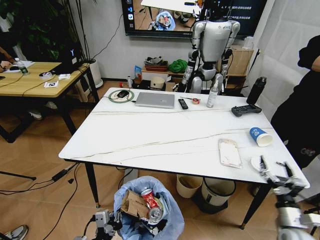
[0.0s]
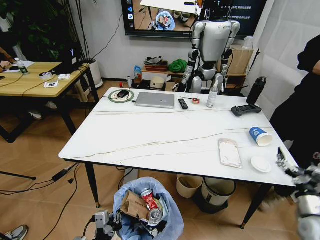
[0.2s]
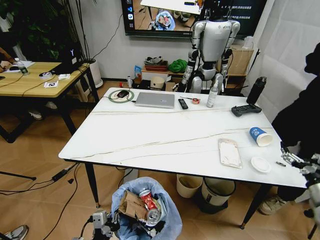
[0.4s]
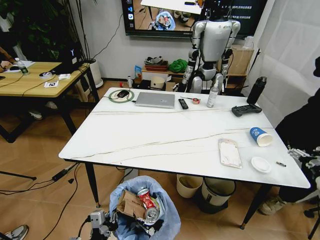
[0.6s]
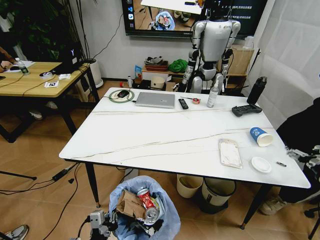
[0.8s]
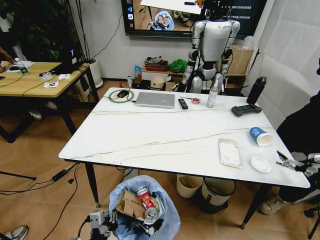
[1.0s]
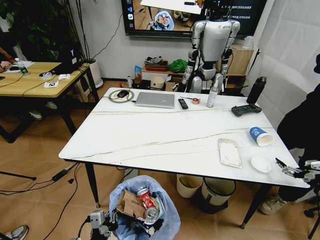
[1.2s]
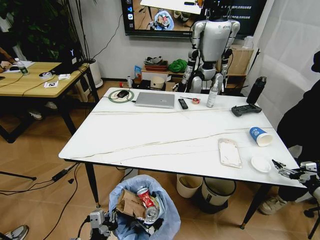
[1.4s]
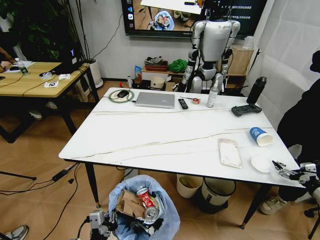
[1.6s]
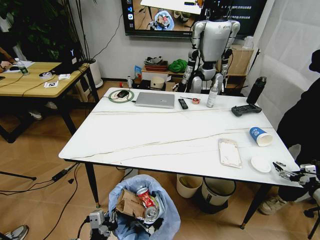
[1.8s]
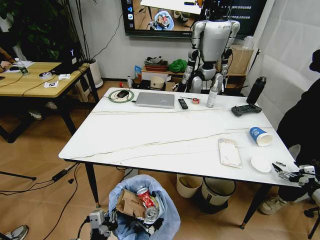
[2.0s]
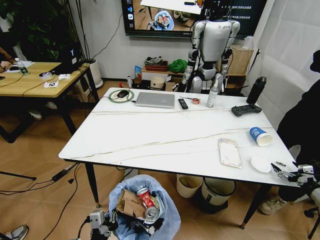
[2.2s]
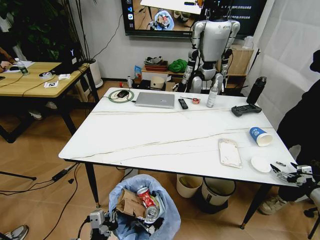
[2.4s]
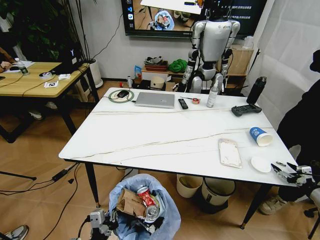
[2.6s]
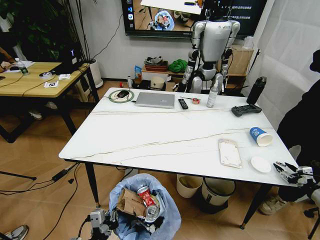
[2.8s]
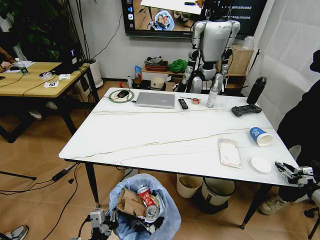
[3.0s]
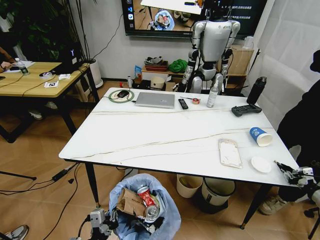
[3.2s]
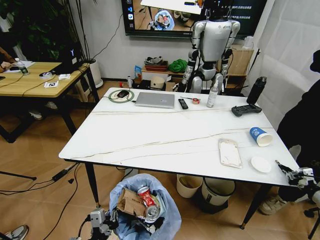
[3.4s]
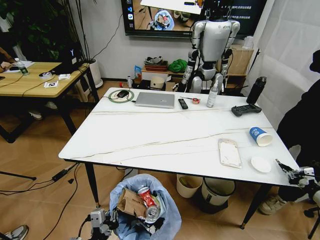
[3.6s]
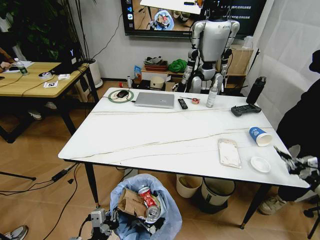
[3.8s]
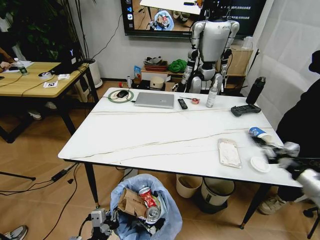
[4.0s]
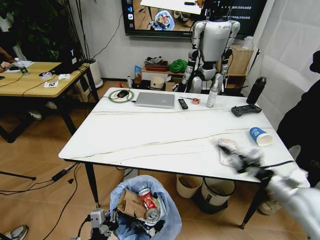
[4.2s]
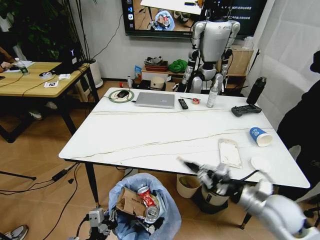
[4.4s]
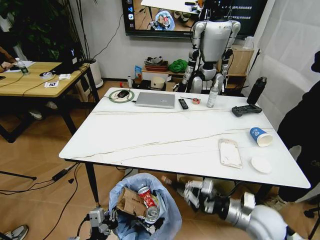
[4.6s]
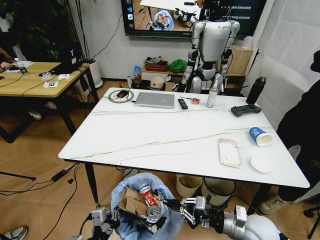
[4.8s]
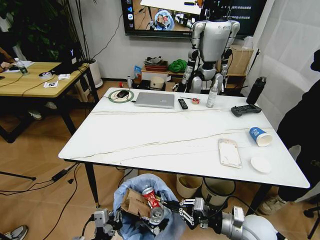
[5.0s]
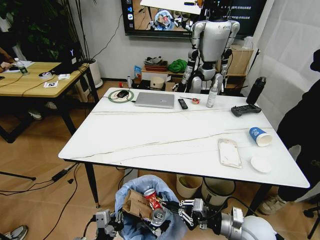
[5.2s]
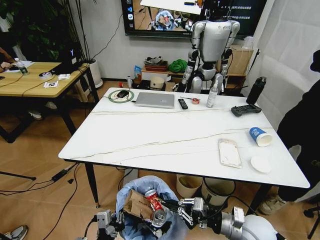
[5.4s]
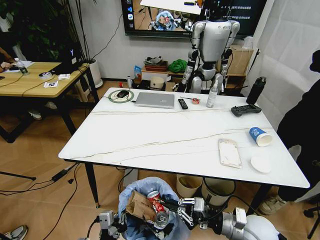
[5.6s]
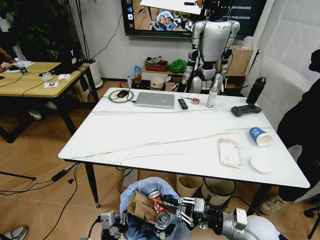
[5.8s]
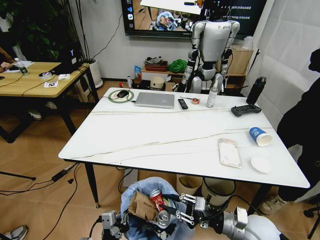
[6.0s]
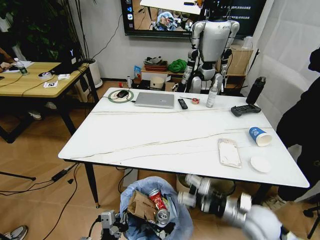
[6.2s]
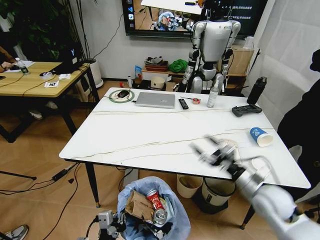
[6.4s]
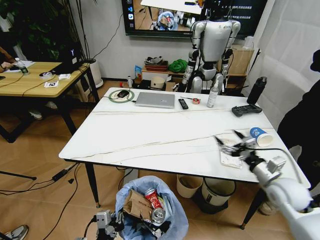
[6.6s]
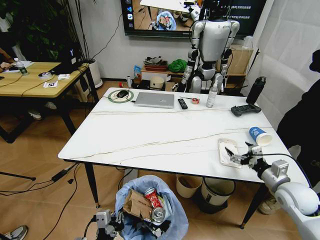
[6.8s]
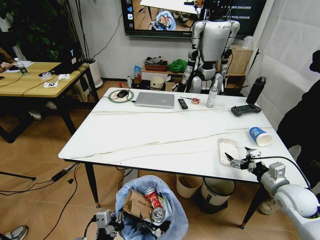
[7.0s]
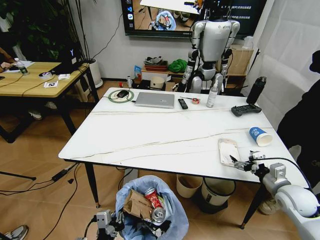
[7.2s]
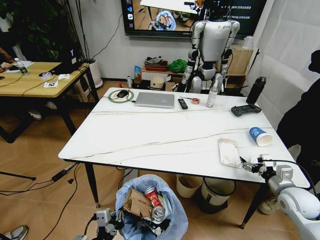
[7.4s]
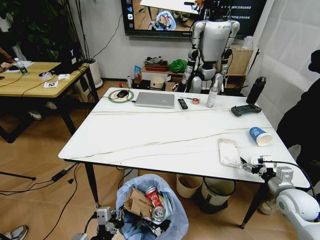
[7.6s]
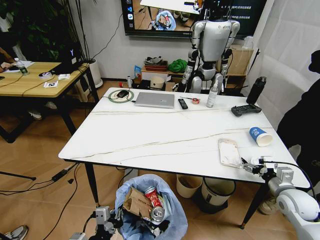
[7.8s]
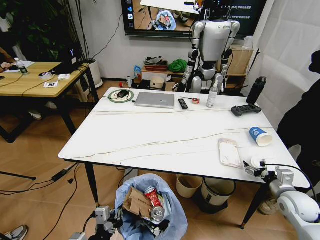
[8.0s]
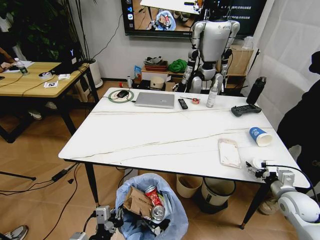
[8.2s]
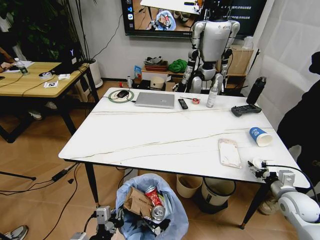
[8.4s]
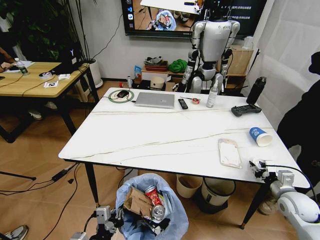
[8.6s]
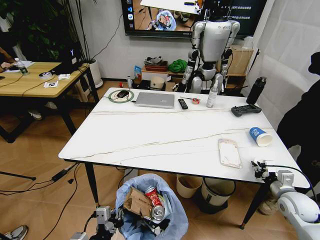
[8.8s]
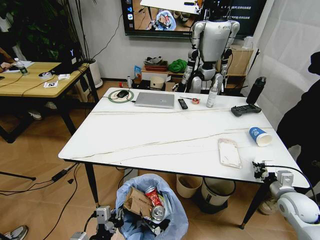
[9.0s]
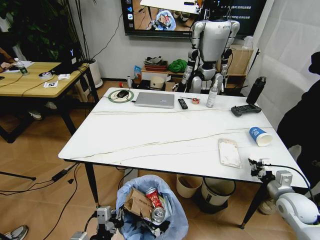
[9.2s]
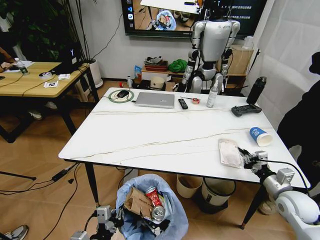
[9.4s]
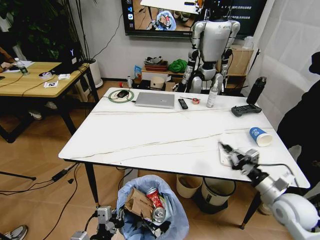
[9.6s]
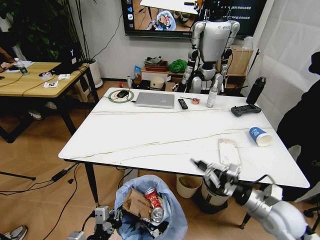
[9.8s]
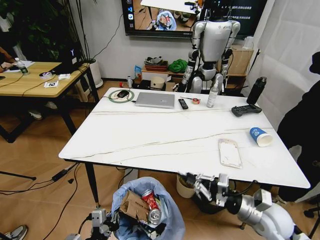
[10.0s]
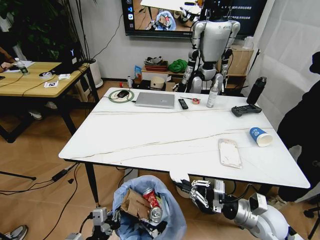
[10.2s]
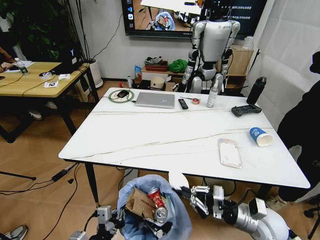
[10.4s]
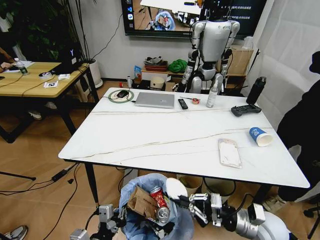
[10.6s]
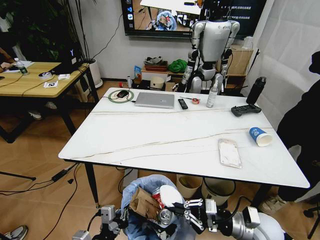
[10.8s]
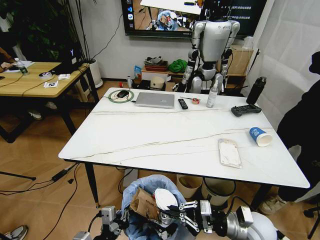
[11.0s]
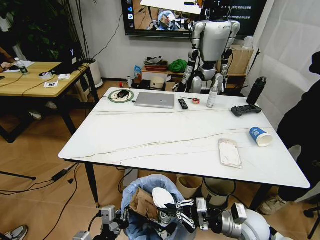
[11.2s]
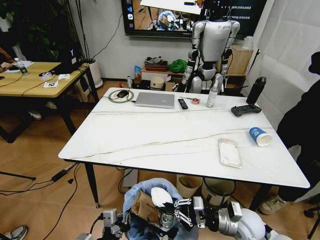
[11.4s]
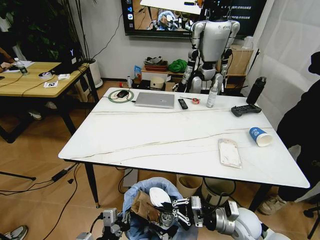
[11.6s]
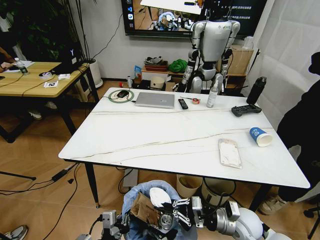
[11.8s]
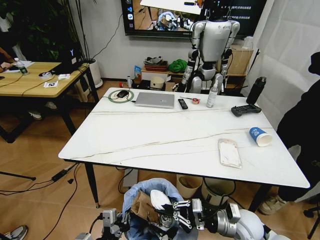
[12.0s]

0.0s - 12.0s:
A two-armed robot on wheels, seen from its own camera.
Task of the whole recording: Pick up the trash bin and place the trash from the table into it.
0.0s - 1.6s: The right gripper moves to the right, approximately 20 cm.
1.6s - 3.0s: The right gripper closes up.
3.0s - 4.4s: The right gripper shifts some 30 cm to the left.
4.4s - 6.0s: The right gripper heads downward, covering some 5 cm.
6.0s - 7.6s: The right gripper goes about 20 cm to the right and forward, and opens up.
7.6s - 9.0s: The right gripper closes up.
9.0s - 10.4s: The right gripper goes some 15 cm to the left.
10.4s - 12.0s: The right gripper ends up about 5 cm from where it was.

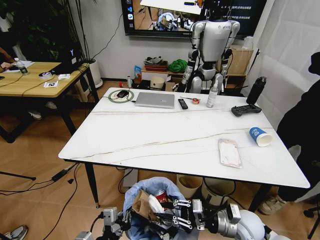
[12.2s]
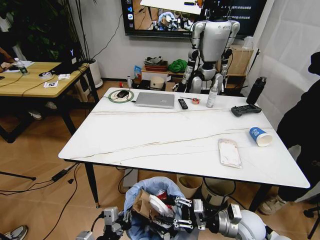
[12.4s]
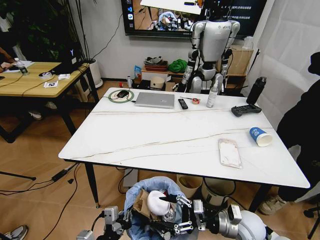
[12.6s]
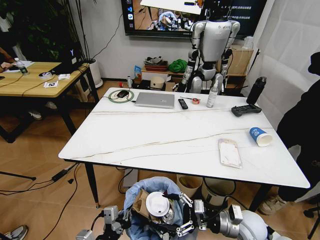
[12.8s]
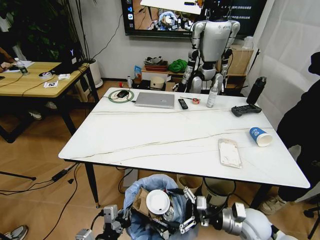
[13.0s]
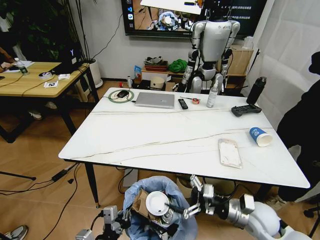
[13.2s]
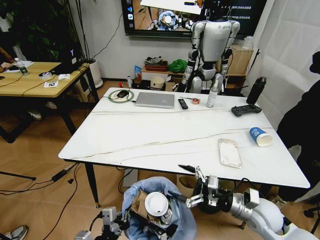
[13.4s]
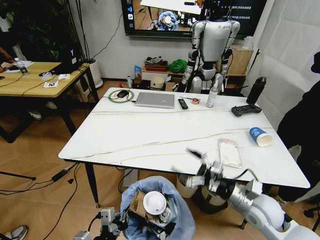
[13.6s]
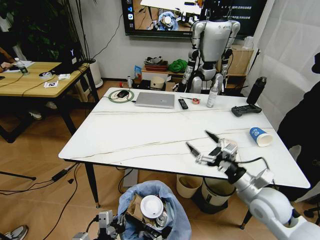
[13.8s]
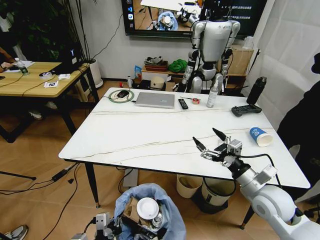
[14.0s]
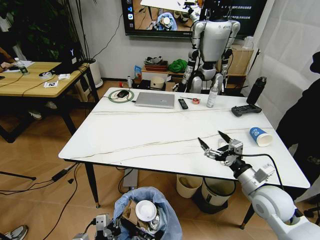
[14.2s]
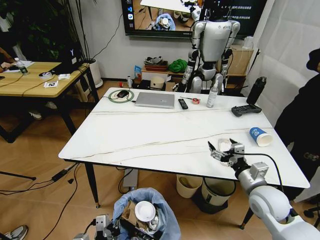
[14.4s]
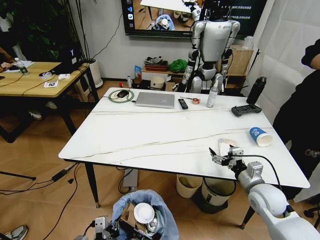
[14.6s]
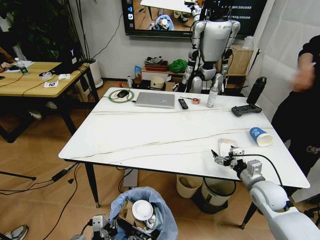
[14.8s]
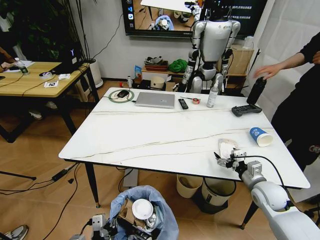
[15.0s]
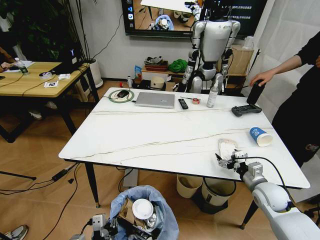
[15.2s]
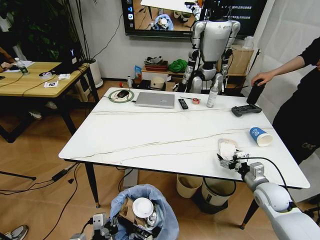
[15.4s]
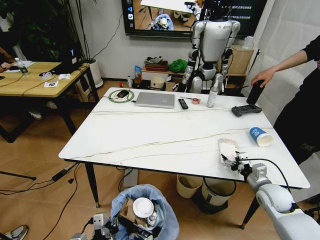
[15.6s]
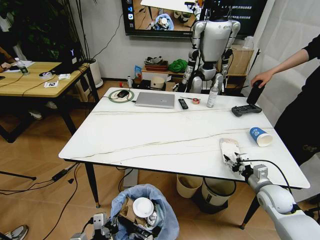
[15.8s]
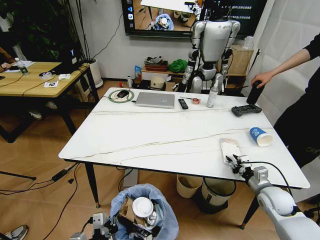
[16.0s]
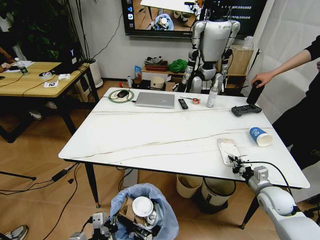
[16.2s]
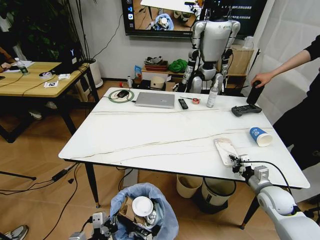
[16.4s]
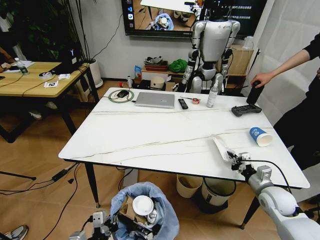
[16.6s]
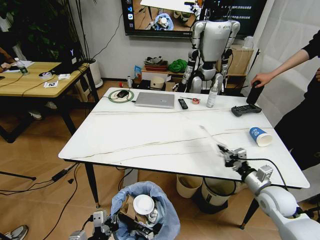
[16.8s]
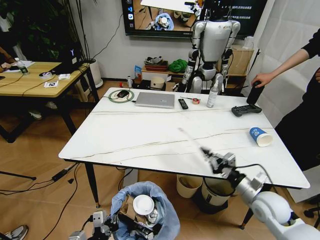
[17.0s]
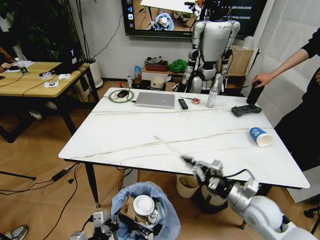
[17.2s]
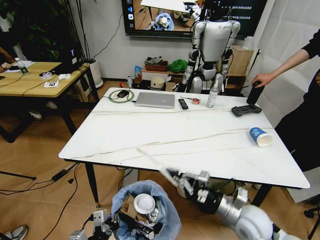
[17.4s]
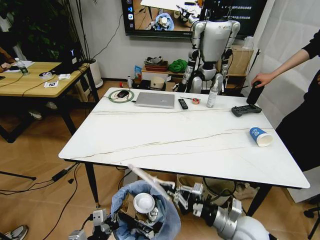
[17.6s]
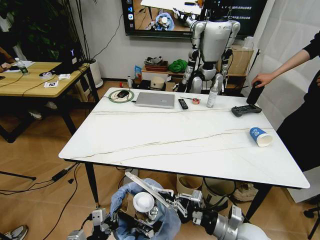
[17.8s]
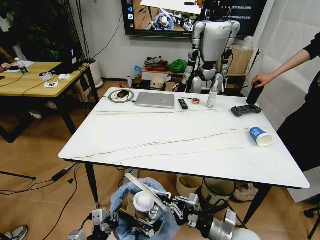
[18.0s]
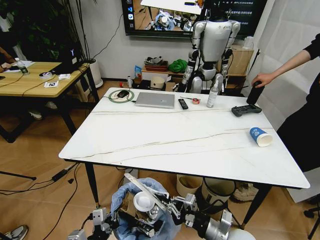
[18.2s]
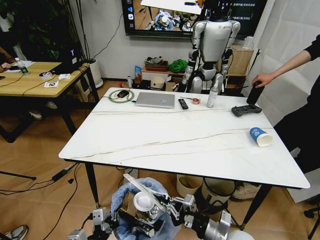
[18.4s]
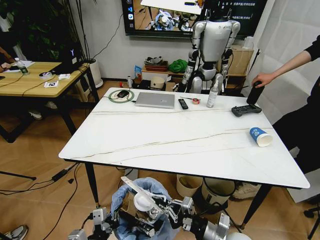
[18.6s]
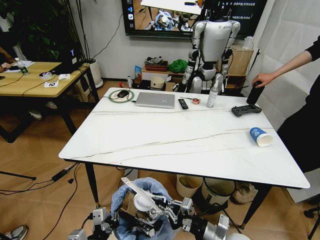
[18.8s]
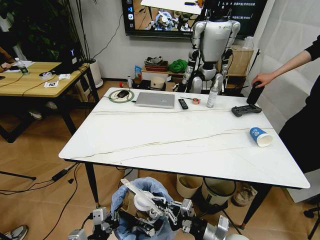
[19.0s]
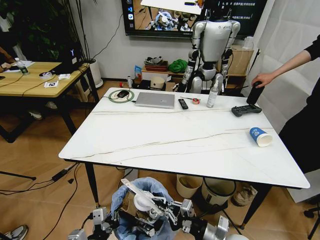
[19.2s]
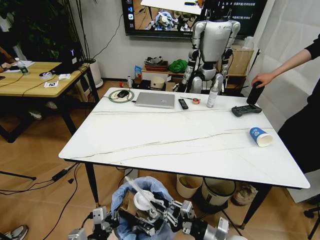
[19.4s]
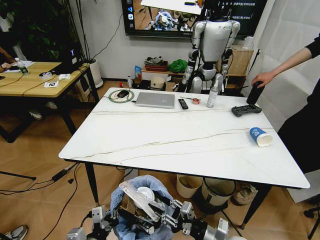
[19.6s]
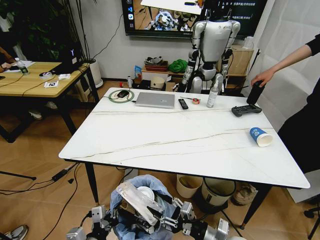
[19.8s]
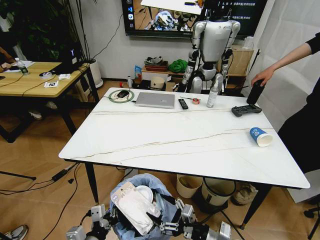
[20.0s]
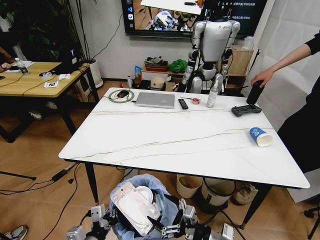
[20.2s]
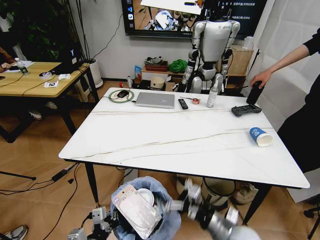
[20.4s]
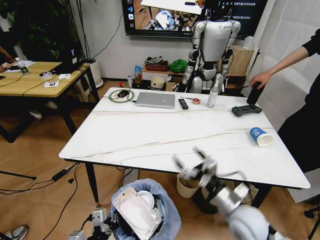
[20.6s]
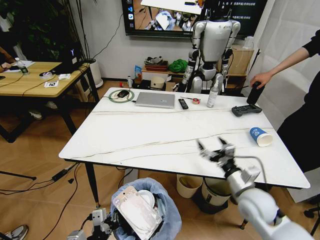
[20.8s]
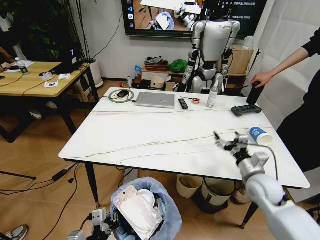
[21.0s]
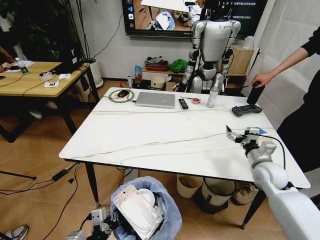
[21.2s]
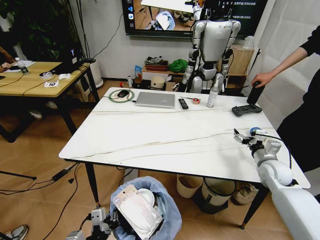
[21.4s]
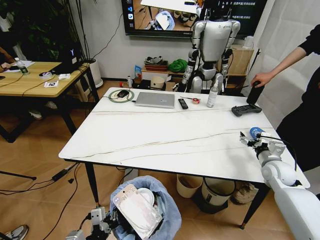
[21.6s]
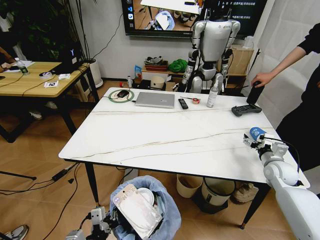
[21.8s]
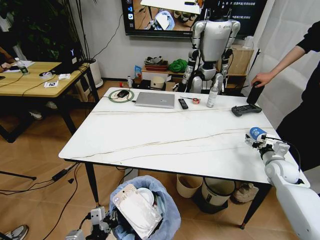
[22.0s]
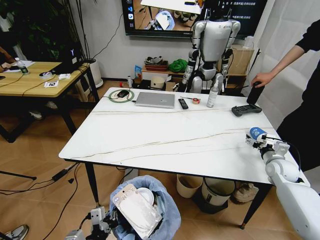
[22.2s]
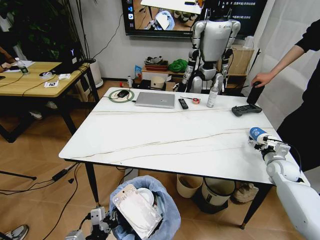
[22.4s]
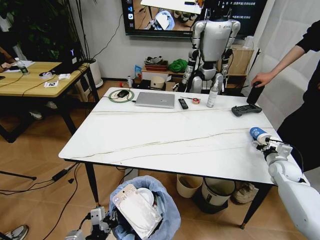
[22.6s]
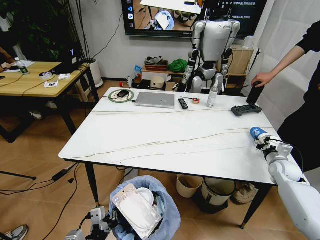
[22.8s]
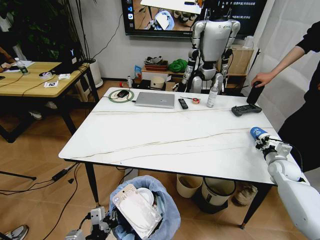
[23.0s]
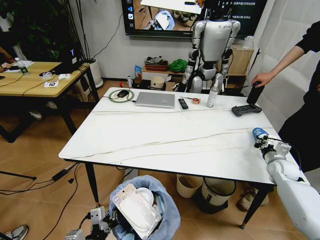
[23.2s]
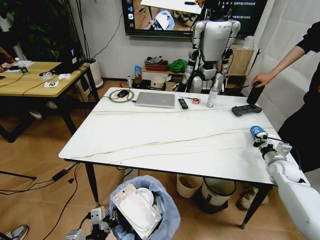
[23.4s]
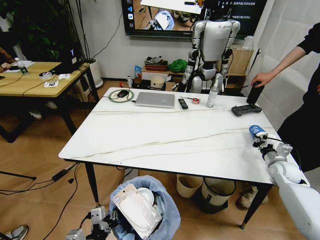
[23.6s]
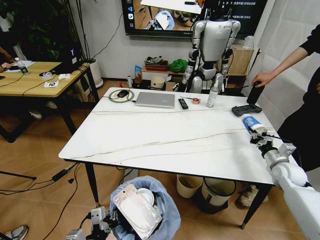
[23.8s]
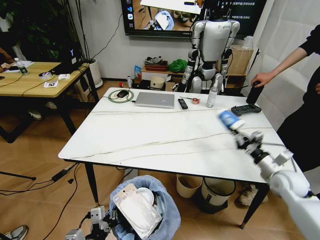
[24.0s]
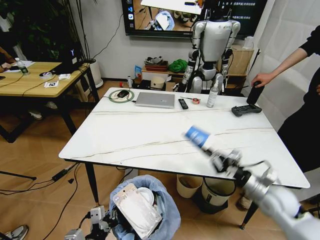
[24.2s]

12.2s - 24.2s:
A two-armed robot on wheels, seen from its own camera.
Task of the whole recording: Pick up the trash bin and place the trash from the table into it.
12.2s - 13.8s: The right gripper shifts roughly 10 cm upward, and opens up.
13.8s - 15.2s: The right gripper travels downward, to the right and forward by some 10 cm.
15.2s - 16.6s: The right gripper closes.
16.6s - 18.2s: The right gripper moves to the left and backward, about 20 cm.
18.2s - 19.8s: The right gripper opens.
19.8s - 21.2s: The right gripper is displaced forward and to the right by roughly 25 cm, and opens.
21.2s - 22.6s: The right gripper travels to the right and downward by roughly 15 cm.
22.6s - 24.2s: The right gripper is displaced to the left and backward by some 20 cm, and closes.
